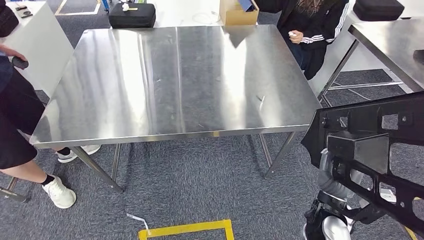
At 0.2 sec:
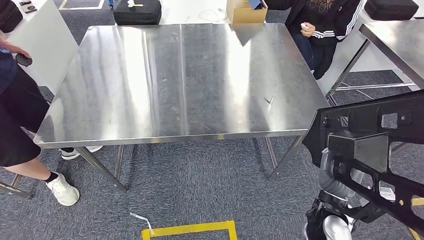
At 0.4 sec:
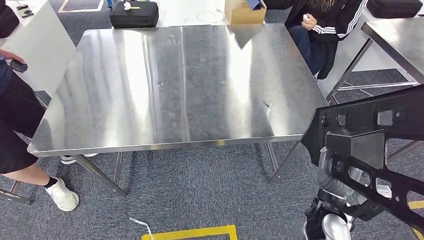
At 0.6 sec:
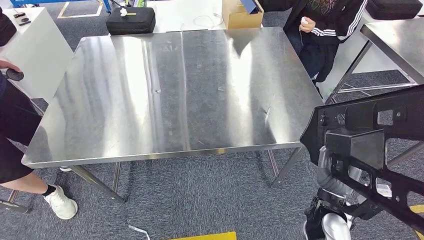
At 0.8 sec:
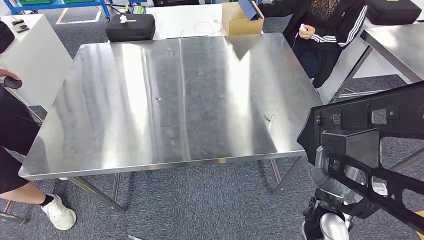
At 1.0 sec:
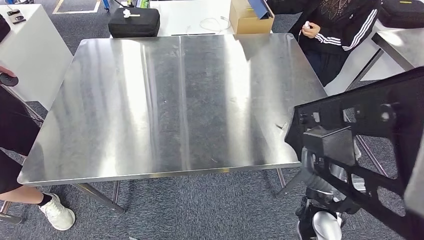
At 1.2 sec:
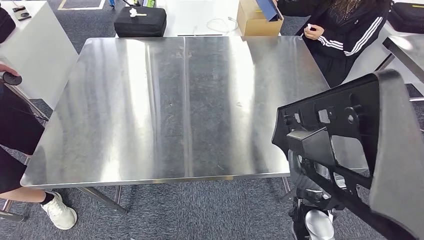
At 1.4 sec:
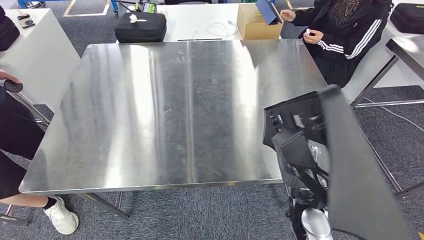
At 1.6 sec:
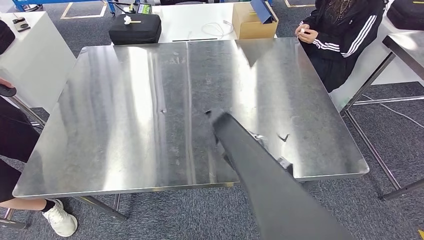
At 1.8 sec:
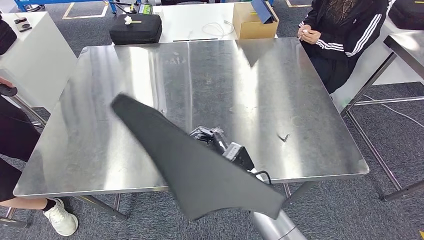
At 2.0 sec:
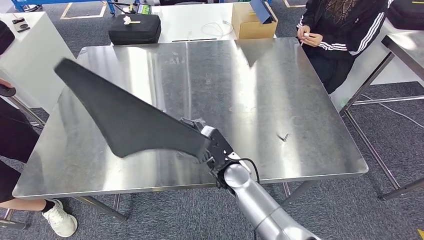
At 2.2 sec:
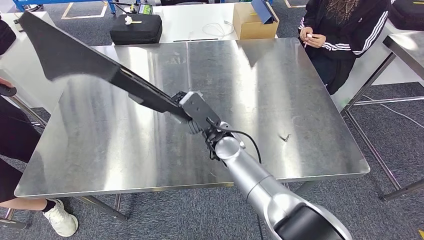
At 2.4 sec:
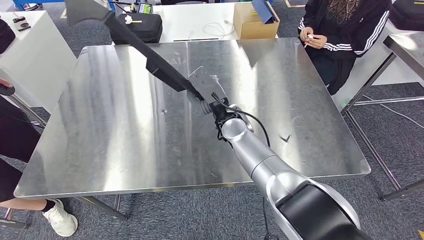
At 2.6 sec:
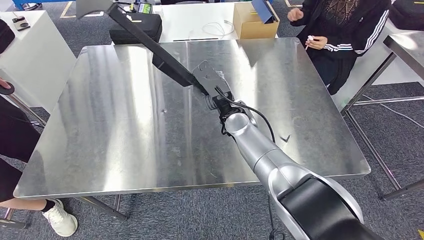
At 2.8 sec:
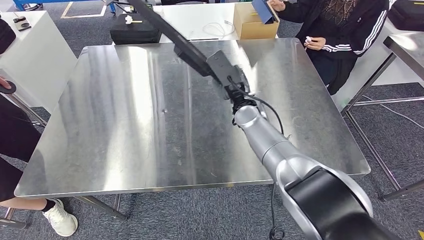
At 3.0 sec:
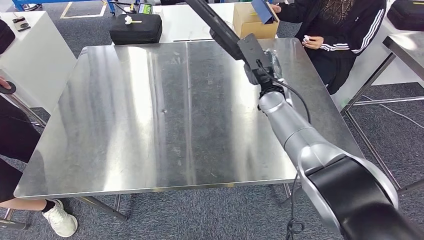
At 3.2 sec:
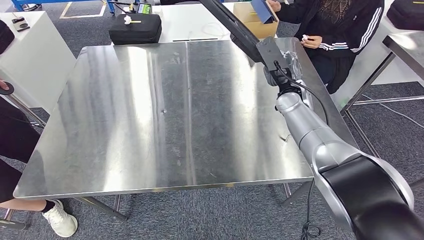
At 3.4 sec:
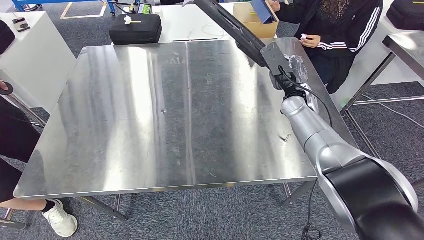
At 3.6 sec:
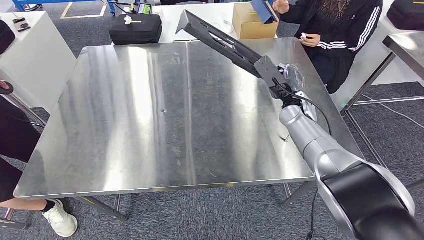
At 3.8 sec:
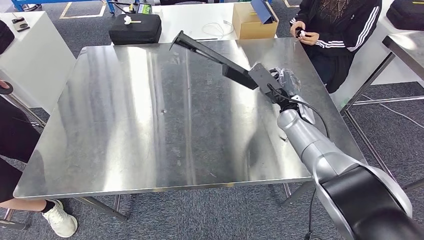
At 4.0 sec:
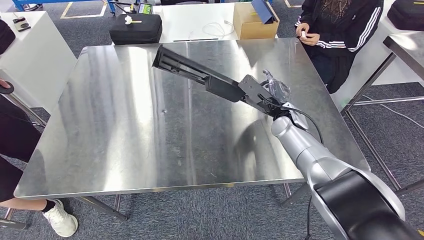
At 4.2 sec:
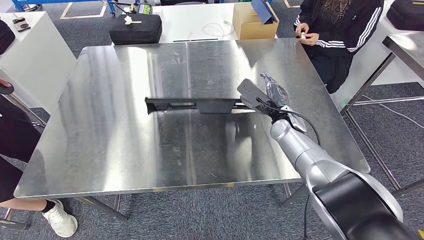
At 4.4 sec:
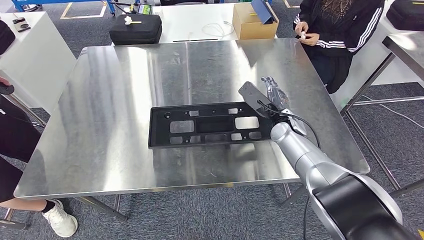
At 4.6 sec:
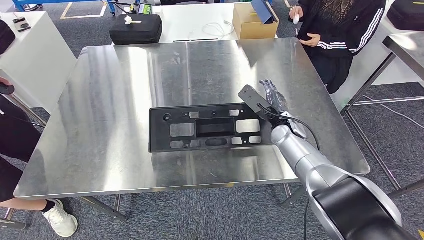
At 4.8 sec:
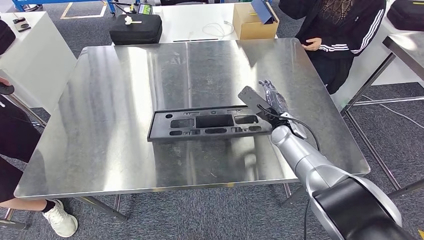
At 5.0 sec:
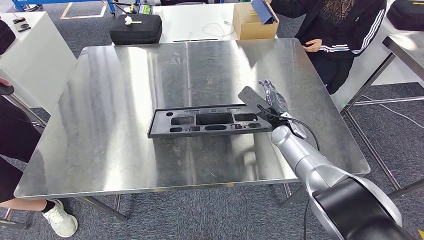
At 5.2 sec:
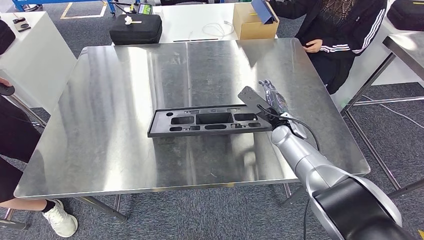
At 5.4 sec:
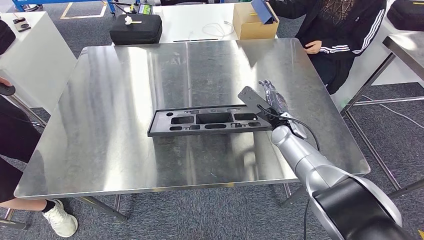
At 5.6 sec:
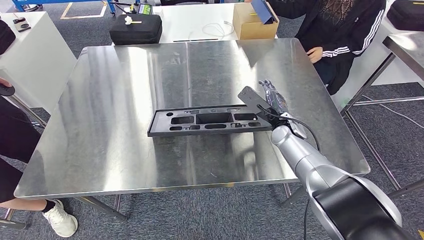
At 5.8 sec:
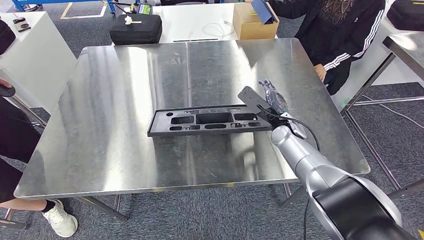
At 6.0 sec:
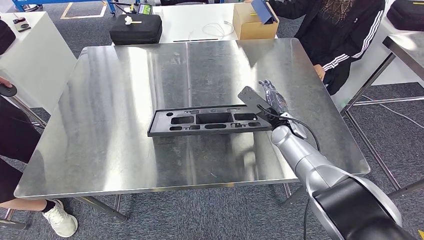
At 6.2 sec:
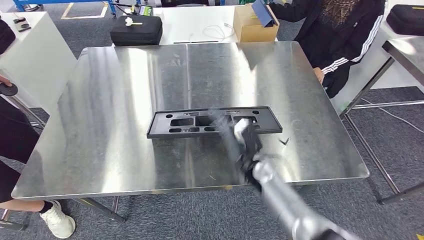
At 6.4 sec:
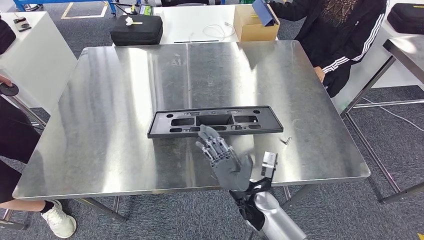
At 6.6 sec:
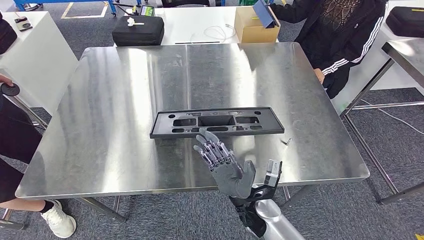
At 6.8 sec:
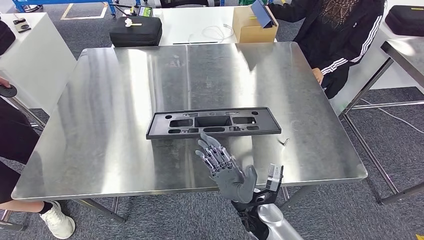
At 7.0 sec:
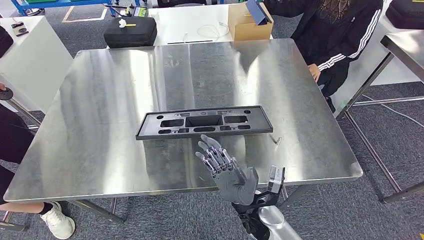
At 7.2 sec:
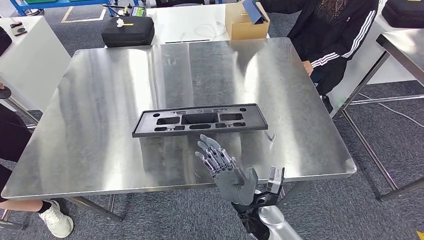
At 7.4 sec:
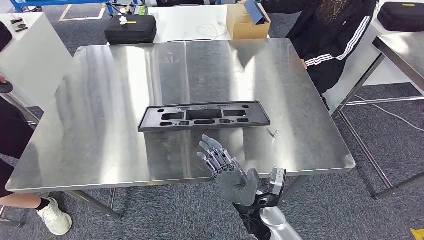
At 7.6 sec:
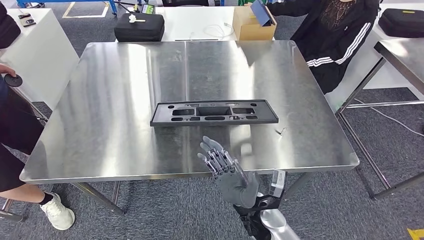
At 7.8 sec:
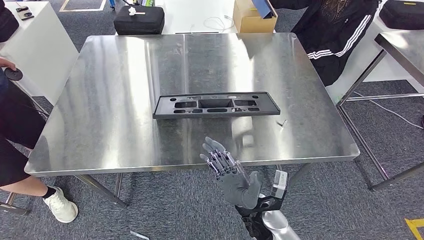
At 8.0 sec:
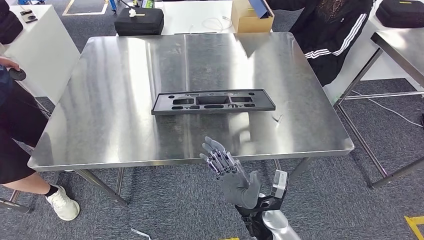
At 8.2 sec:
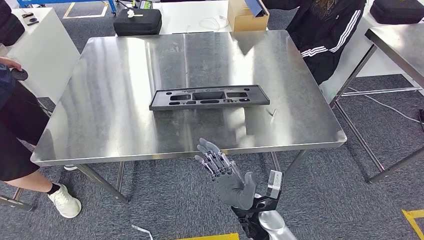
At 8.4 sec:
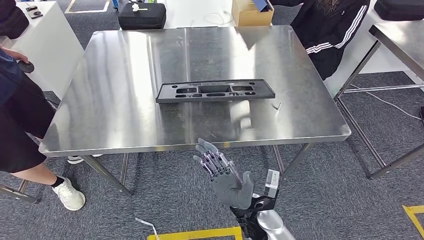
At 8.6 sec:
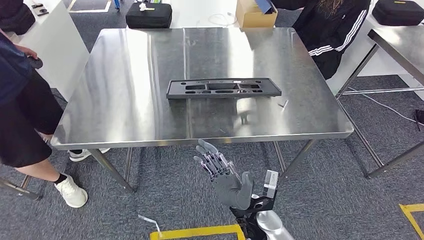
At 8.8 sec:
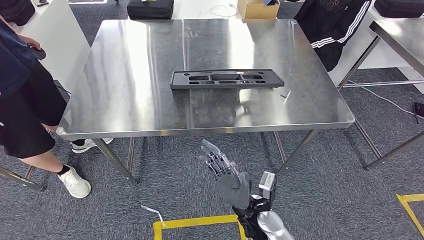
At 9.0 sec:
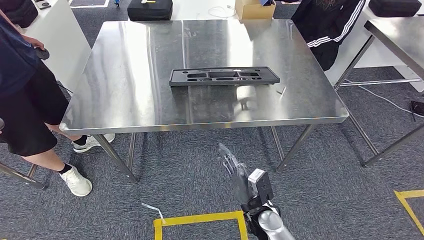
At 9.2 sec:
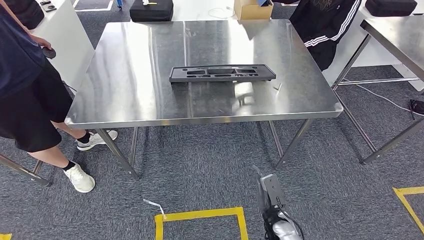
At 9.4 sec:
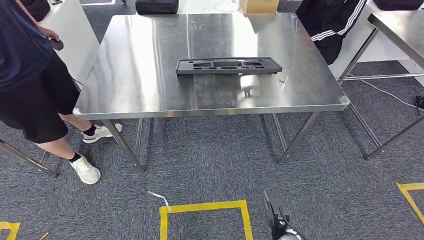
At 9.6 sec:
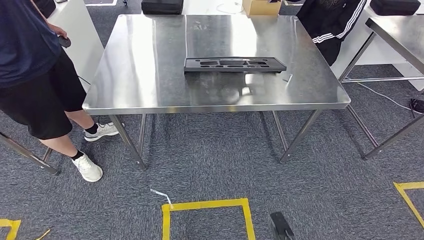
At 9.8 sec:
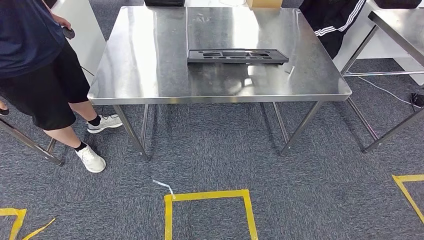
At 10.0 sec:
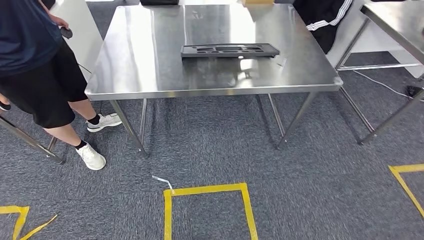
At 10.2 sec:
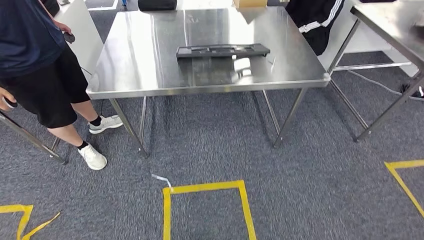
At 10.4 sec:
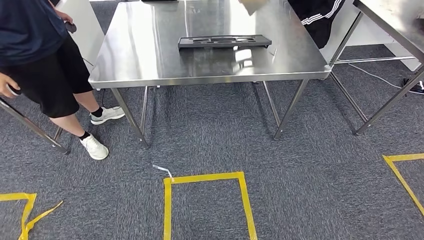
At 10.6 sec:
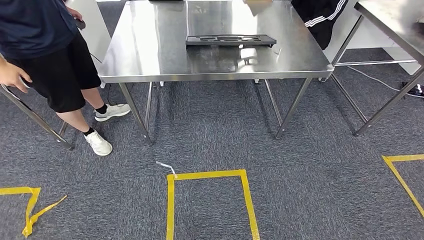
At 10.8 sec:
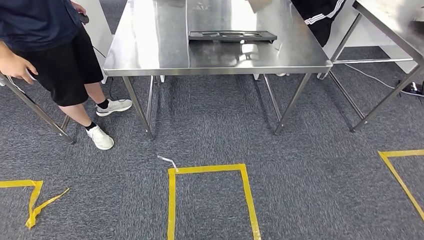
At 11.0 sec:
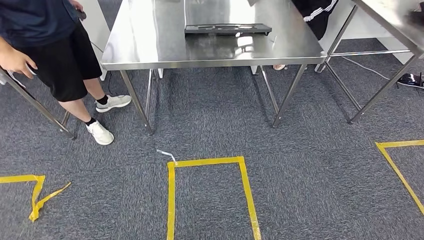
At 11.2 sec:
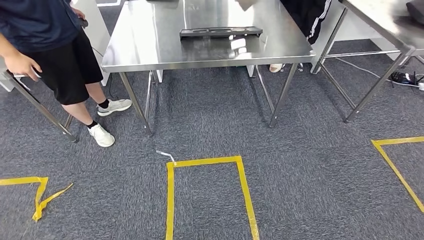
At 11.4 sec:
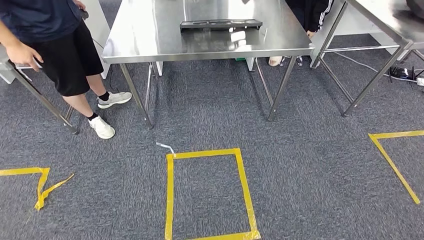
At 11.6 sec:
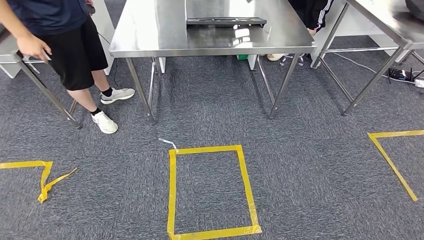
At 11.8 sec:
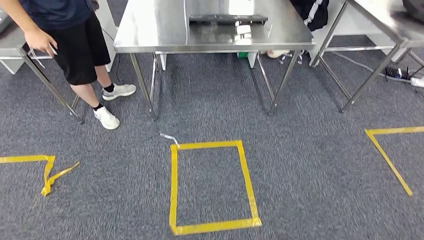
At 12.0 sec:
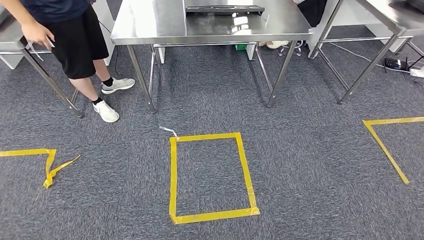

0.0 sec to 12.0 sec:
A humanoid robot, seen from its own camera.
Step, 0.0 sec to 10.2 sec: Insert the large material into the corresponding slot on the workbench.
1.6 sec to 3.0 sec: The right hand goes roughly 25 cm forward and upward.
3.0 sec to 4.4 sec: The right hand moves downward and to the right, some 10 cm.
4.4 sec to 6.0 sec: The two hands keep their place.

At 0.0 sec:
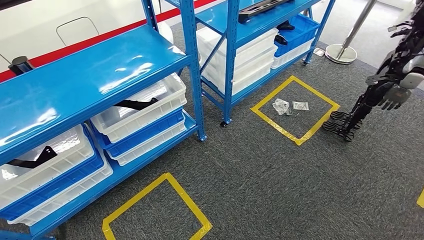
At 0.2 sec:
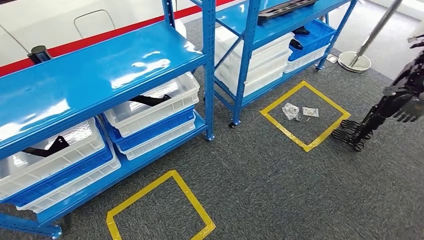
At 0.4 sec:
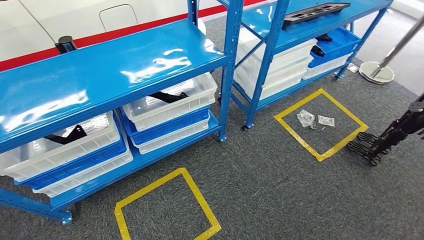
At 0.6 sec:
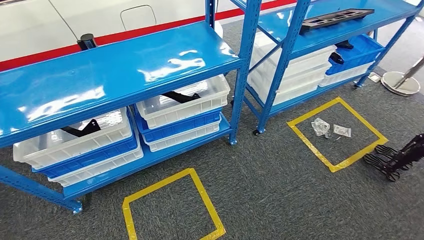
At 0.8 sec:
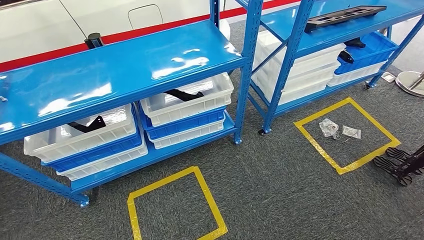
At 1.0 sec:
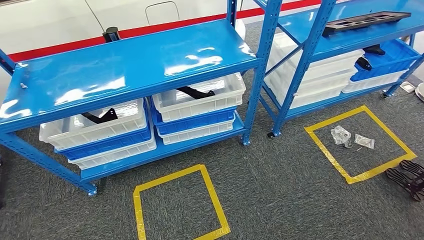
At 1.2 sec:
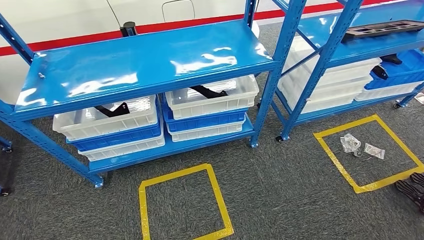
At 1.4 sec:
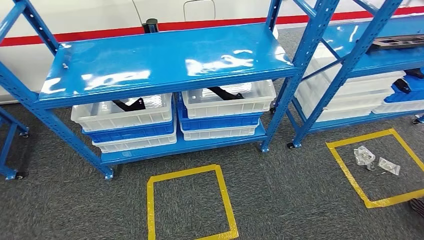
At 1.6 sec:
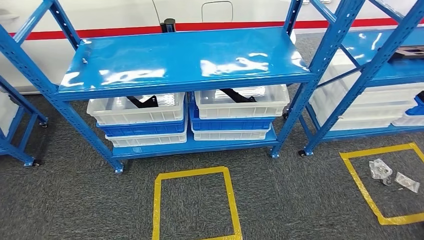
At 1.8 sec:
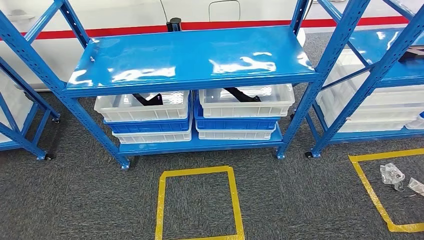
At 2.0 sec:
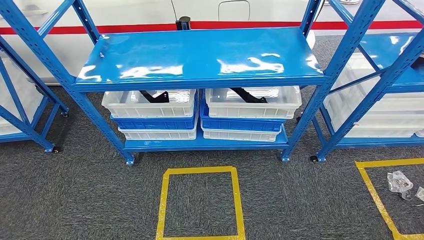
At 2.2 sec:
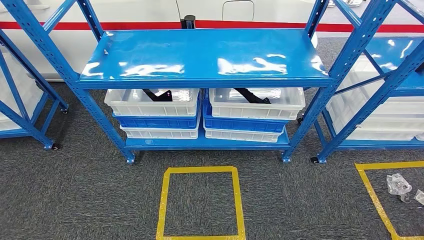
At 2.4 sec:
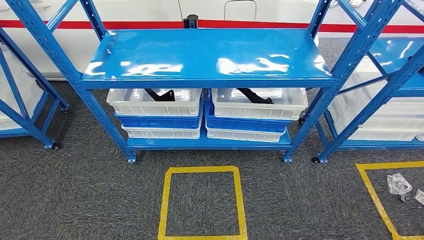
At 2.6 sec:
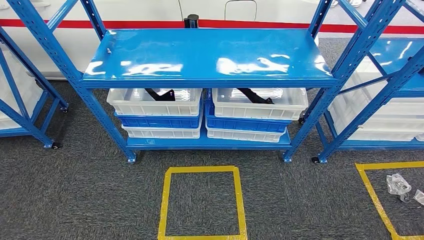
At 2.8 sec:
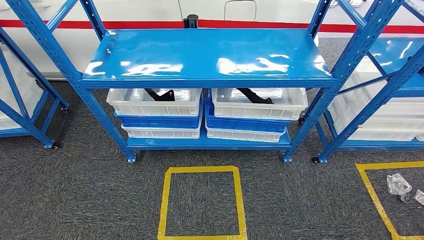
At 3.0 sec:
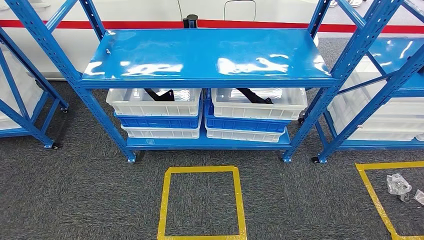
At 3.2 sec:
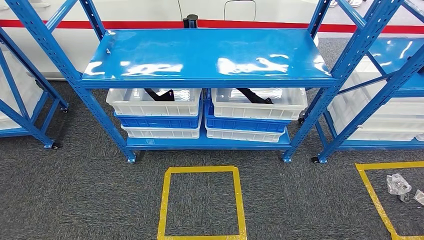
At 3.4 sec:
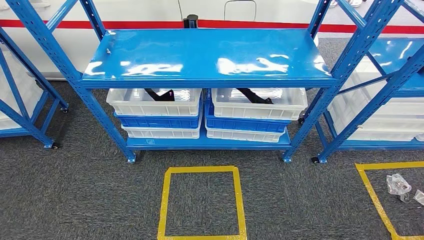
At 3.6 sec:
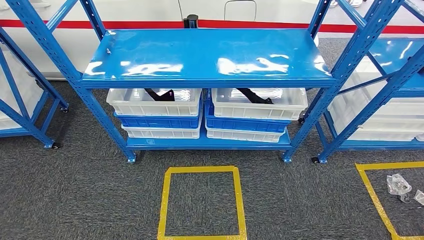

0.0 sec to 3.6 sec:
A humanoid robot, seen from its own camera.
Step, 0.0 sec to 3.6 sec: Move to the initial position of the shelf.
